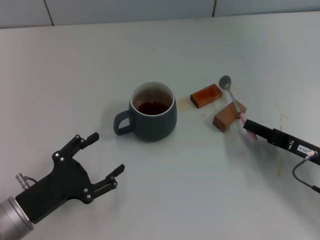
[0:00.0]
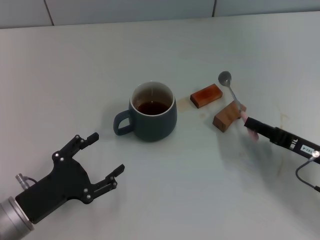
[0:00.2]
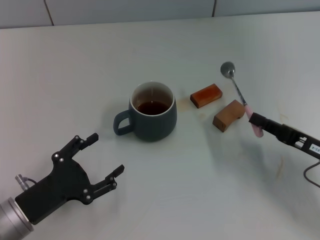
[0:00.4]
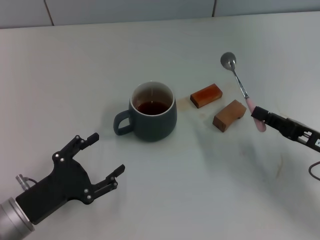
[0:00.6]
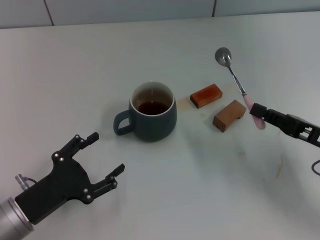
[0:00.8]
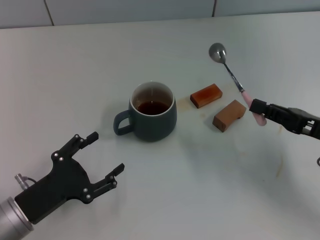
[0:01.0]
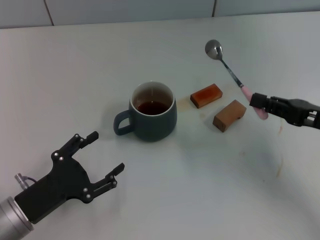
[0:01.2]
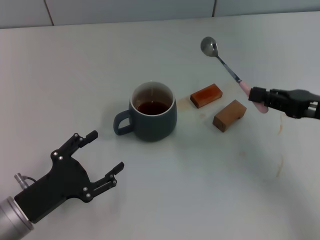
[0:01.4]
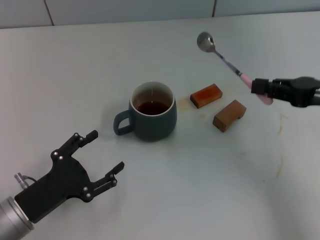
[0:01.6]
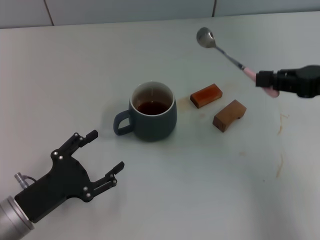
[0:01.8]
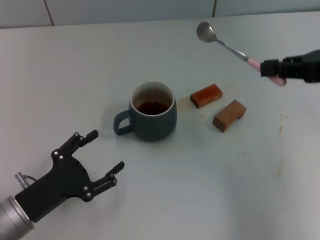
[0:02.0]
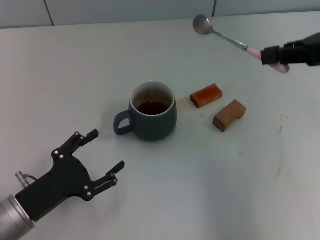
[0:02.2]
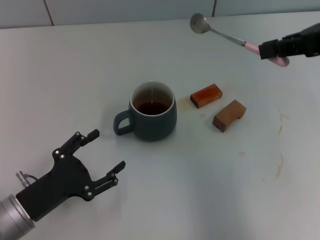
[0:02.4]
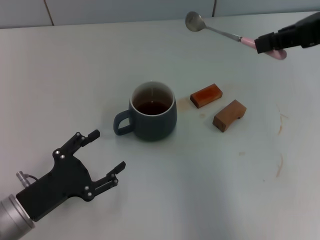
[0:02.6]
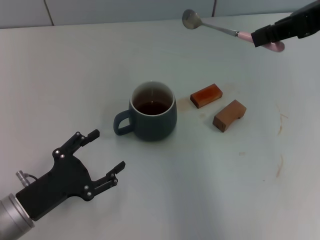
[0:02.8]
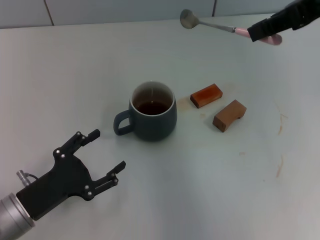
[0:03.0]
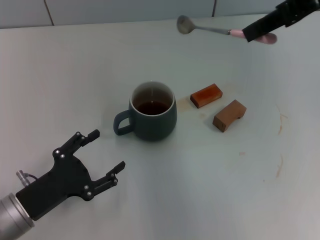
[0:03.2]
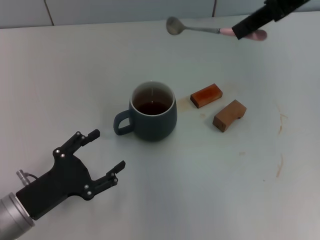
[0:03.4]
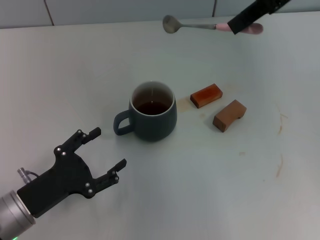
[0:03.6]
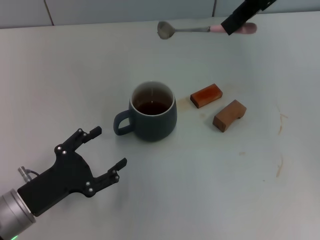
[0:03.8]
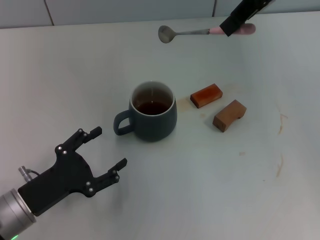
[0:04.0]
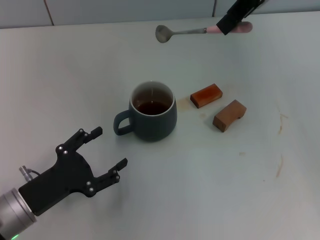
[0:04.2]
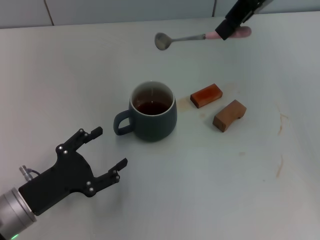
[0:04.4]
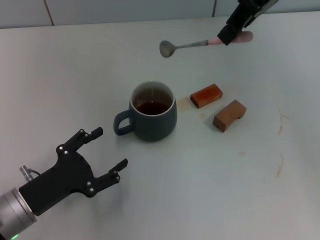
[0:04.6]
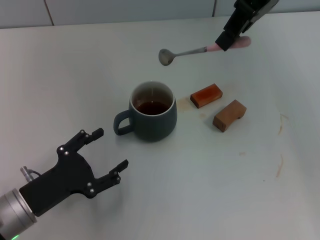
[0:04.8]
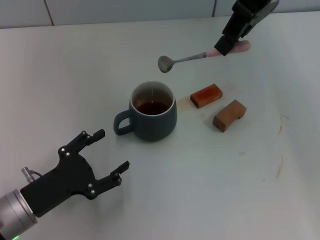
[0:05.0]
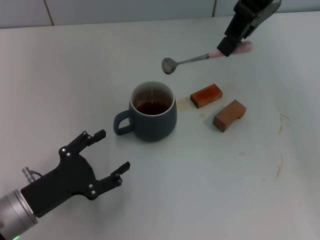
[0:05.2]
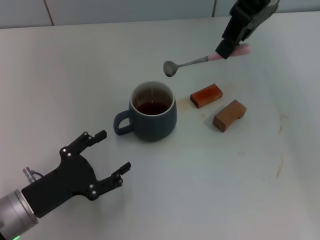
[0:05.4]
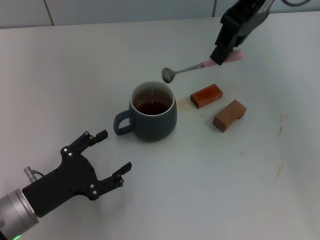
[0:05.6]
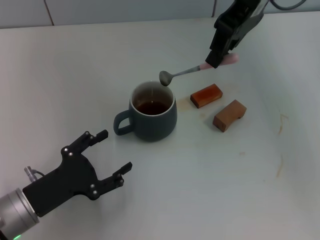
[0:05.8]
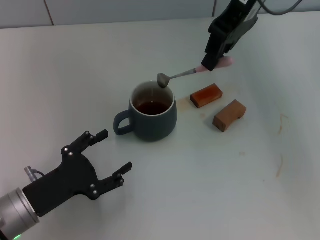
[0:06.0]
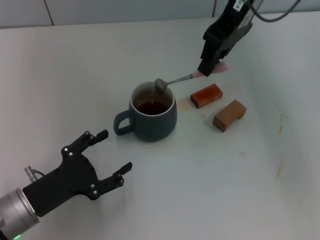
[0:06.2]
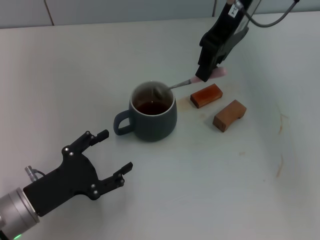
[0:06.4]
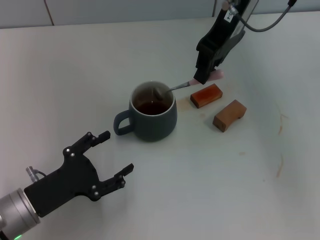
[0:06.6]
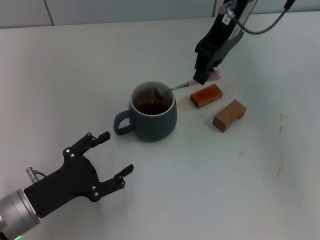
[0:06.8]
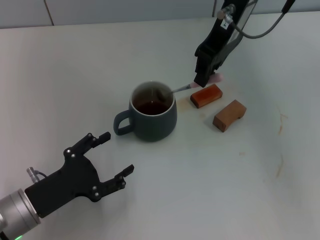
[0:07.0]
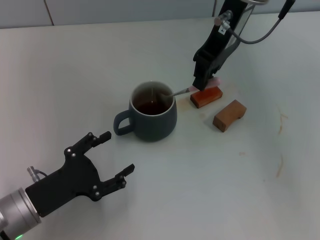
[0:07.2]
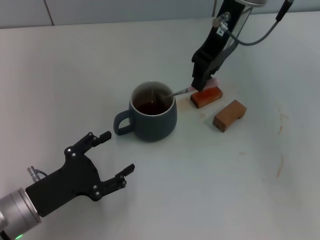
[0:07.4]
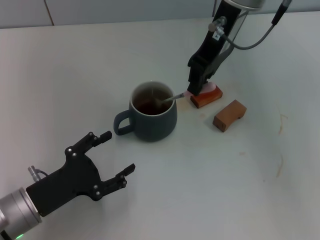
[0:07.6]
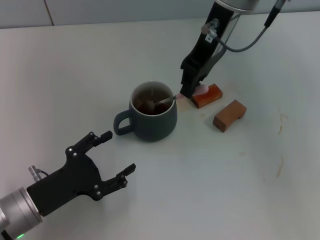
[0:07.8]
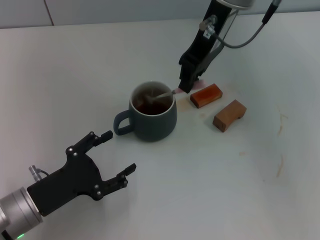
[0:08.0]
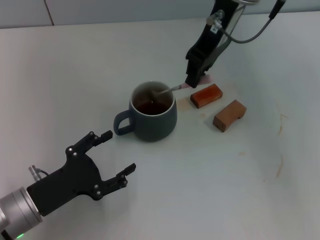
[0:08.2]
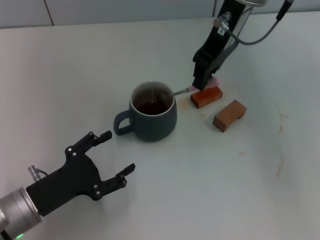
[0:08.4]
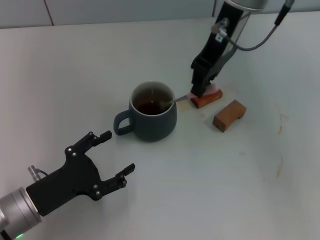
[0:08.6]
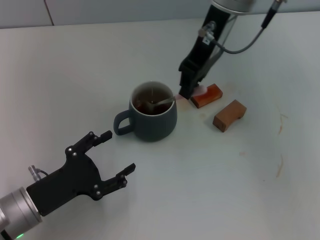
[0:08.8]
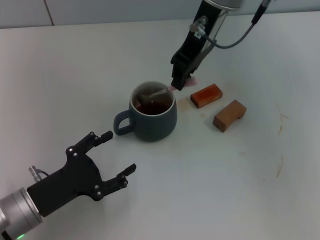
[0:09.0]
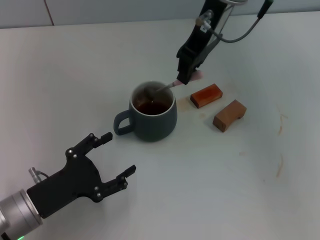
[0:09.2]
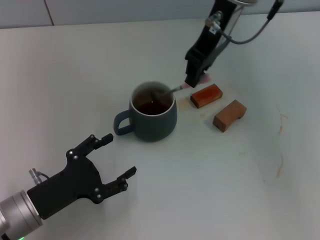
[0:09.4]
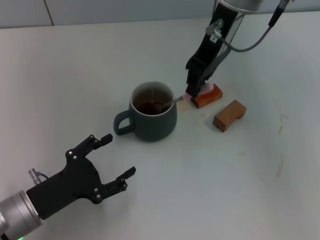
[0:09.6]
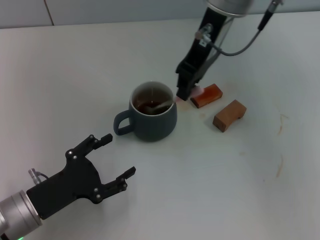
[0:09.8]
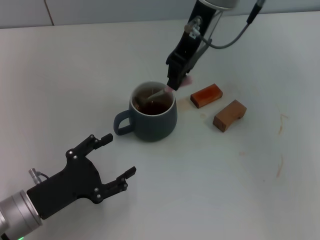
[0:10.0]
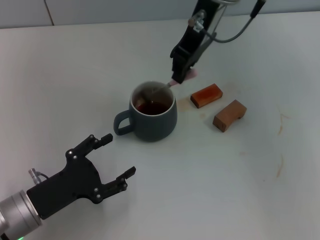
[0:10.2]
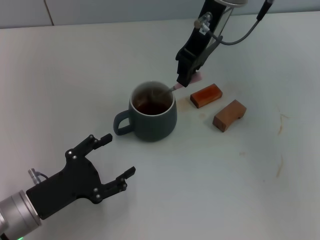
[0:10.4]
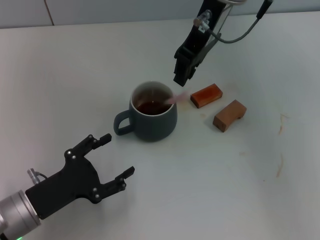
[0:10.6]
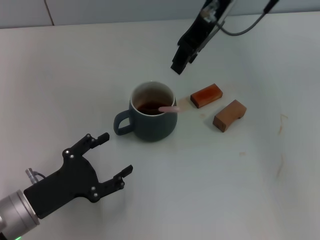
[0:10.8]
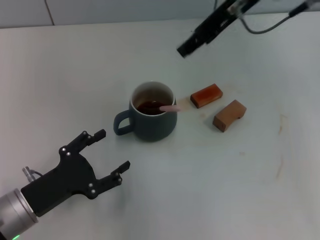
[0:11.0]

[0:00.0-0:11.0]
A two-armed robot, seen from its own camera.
Task of the whole recording: Move the grey cup to the center, lift the pink spoon, stir it three times in the cup, and put the spoon into the cup.
Step, 0:01.2 to 0:10.4: Stir the coffee in the cup with the right gripper.
0:00.0 to 0:01.6: The right gripper shifts about 15 cm upward.
0:01.6 to 0:03.2: The right gripper shifts roughly 20 cm upward, forward and to the left.
0:03.2 to 0:04.8: The right gripper travels to the left and forward by some 10 cm.
0:04.8 to 0:06.2: The right gripper changes place by approximately 5 cm.
0:06.2 to 0:09.4: The grippers move only a little.
0:09.4 to 0:11.0: The right gripper shifts by approximately 5 cm, and opens its fingers.

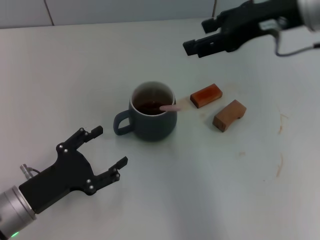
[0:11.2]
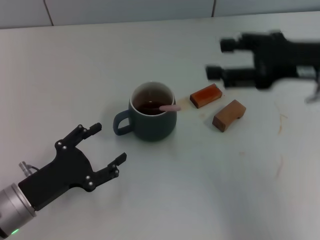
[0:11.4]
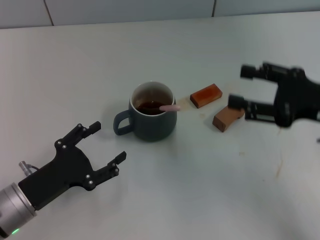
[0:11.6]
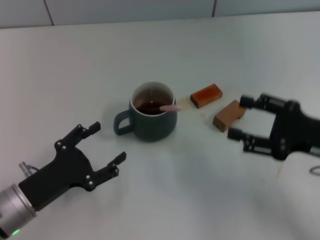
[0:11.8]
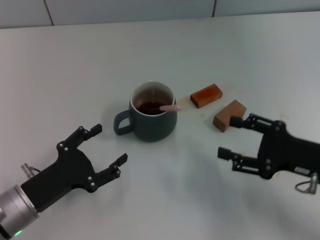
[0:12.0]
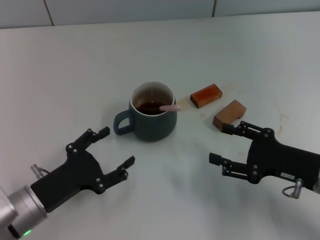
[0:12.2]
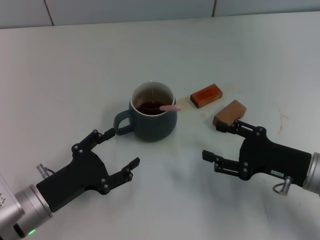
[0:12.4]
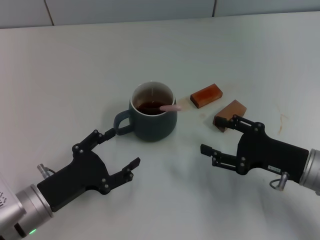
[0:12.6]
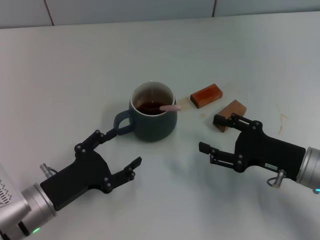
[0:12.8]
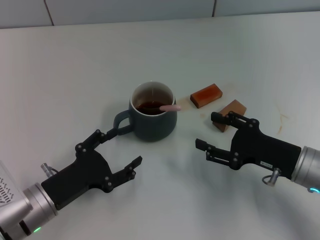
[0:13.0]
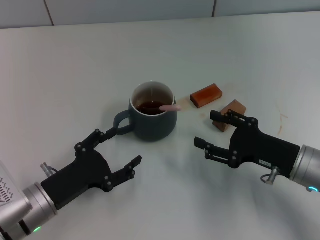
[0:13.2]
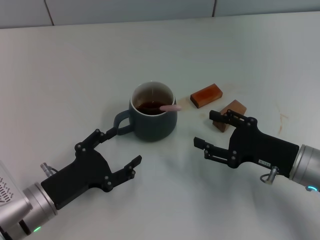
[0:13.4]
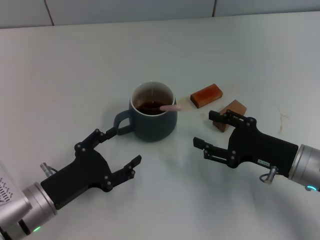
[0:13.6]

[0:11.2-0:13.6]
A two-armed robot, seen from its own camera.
Task of the whole recording: Move the grey cup to the center, lift the pink spoon, stir it three times in the cup, and put the spoon into the cup.
0:11.2 to 0:12.4: The right gripper shifts about 25 cm downward and backward.
0:12.4 to 0:13.6: There are only small adjustments of the grippers.

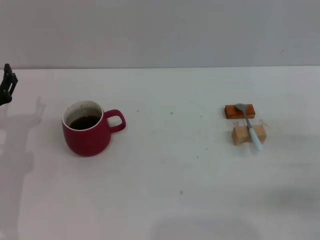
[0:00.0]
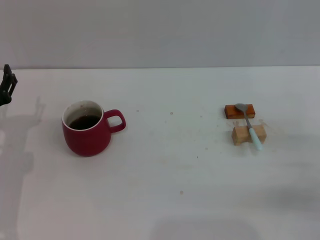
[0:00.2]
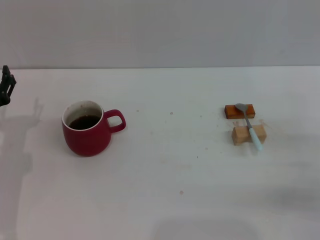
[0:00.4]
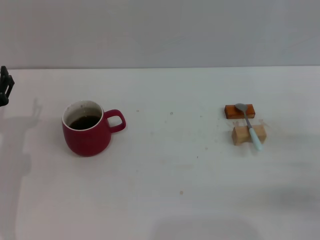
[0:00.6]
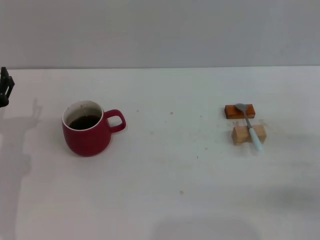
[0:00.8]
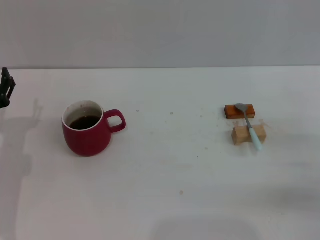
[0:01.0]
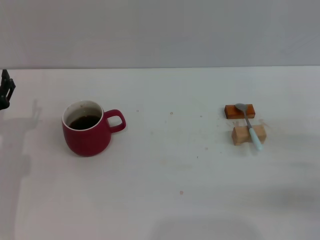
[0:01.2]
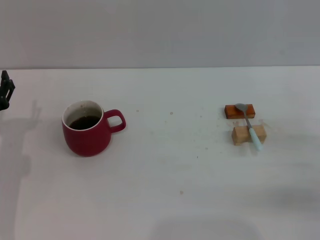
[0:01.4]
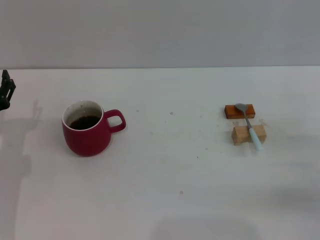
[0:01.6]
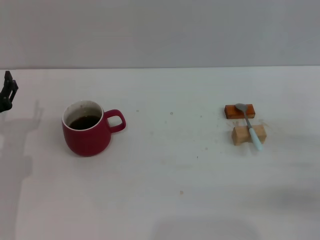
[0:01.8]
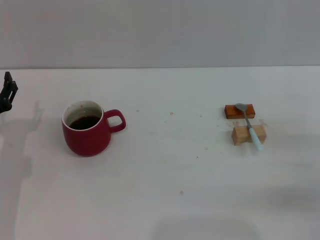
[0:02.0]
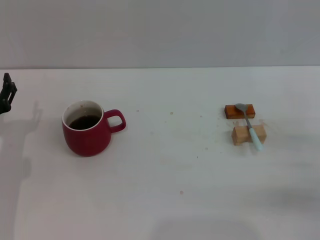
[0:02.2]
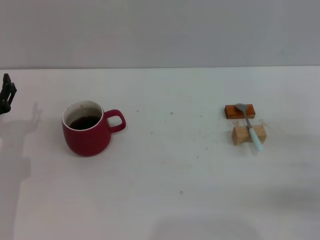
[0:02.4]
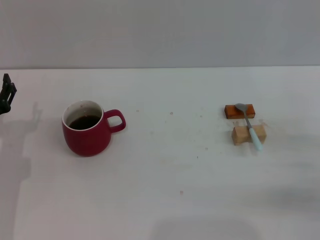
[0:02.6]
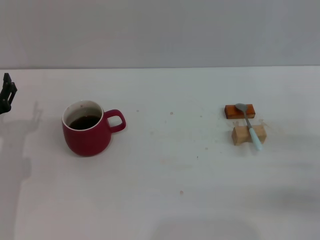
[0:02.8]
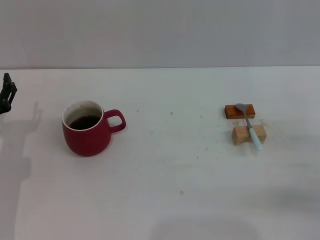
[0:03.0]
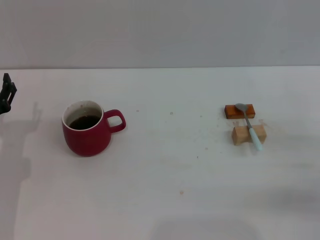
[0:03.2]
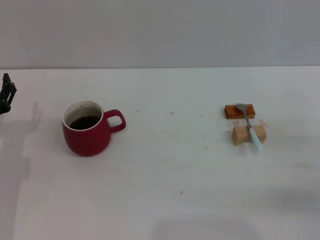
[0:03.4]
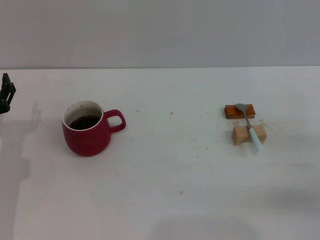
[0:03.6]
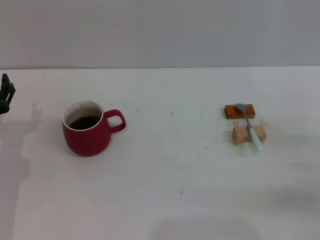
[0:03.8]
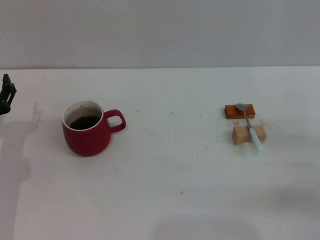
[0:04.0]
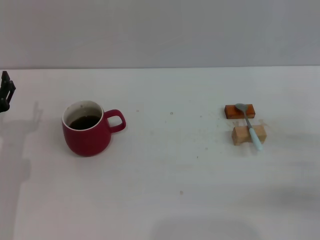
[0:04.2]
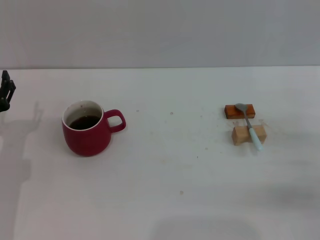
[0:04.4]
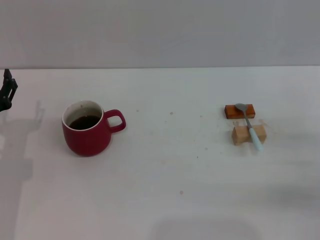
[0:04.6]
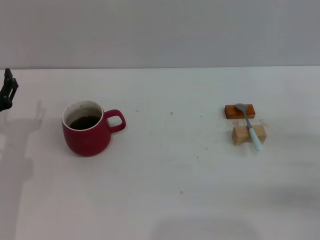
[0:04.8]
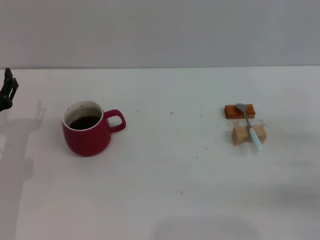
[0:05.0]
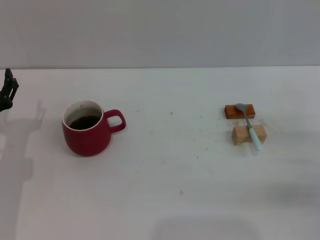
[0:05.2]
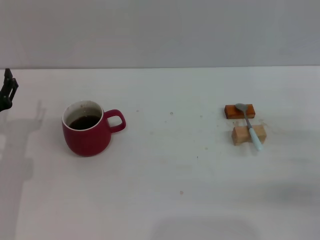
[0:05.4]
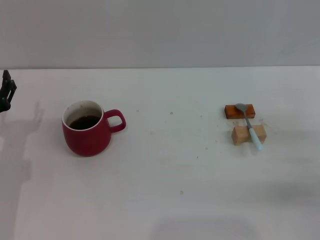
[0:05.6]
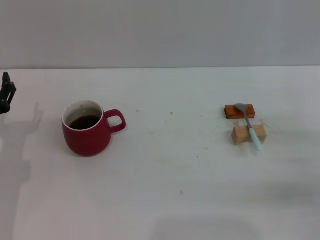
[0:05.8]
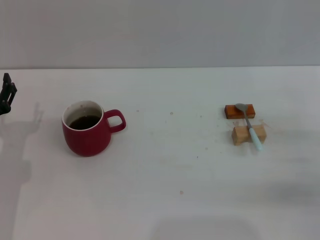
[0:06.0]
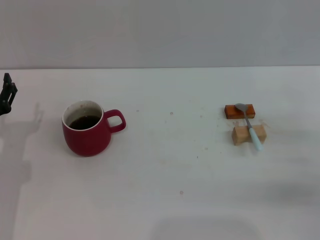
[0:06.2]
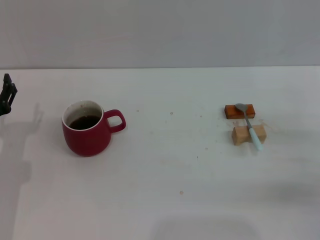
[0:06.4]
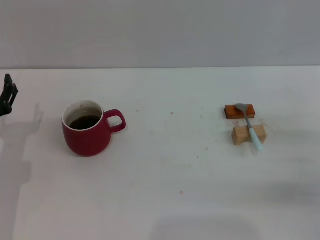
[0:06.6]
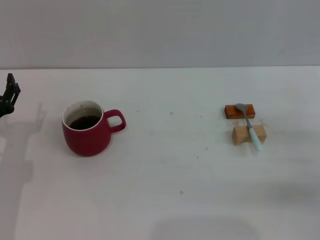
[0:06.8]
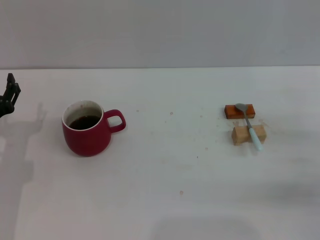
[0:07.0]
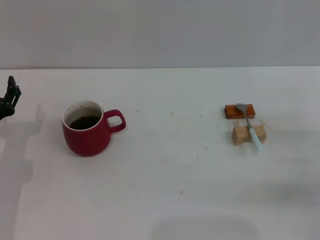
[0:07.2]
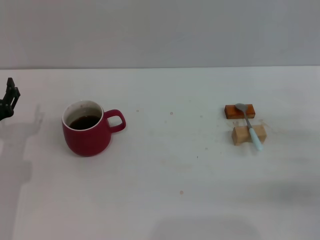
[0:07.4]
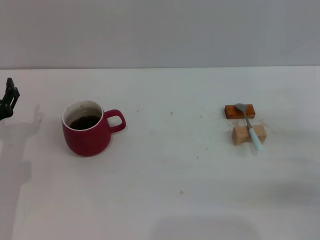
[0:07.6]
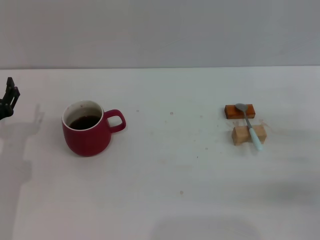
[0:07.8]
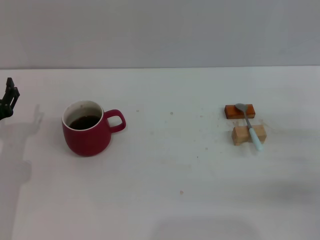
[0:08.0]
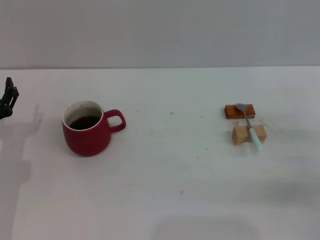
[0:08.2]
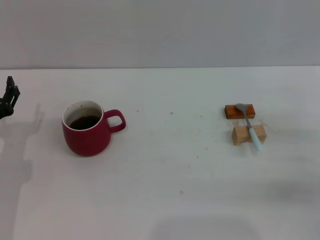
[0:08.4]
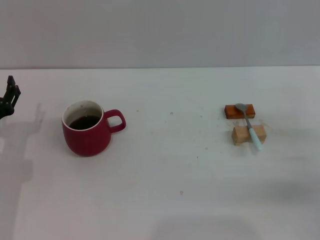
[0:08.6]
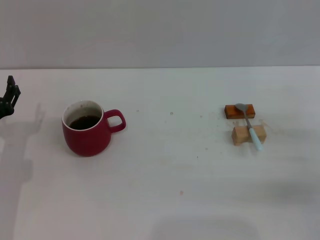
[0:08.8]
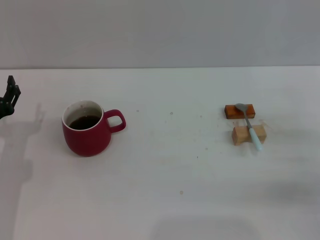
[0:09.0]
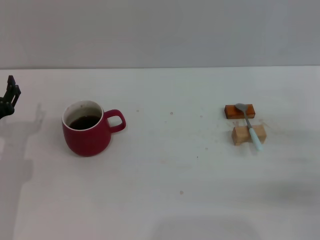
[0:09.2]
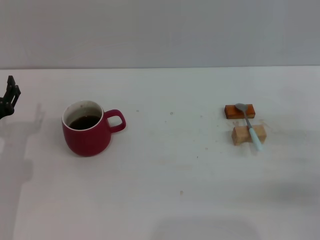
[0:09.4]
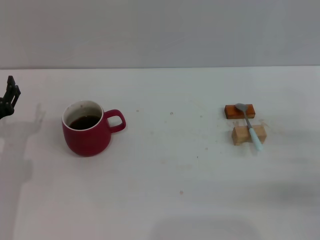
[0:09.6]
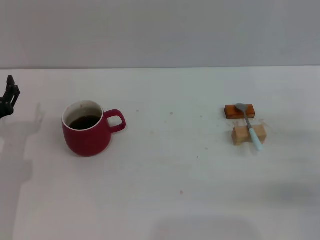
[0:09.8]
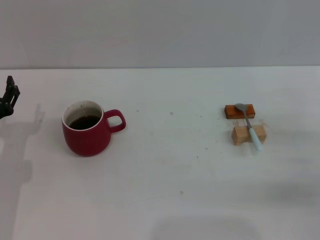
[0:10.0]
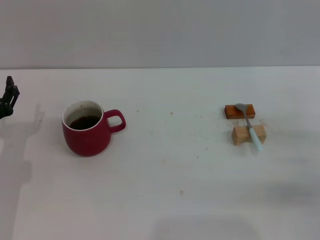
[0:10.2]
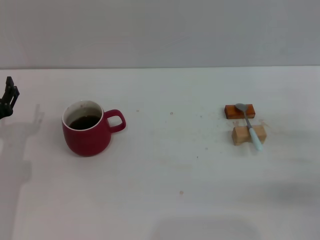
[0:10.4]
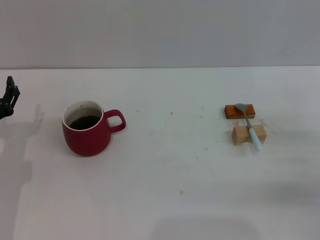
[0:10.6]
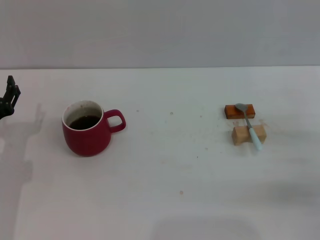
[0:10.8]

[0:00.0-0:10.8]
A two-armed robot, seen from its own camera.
Task of the whole recording: Move the red cup to the center, lift the blue spoon, stir it three times in the cup, and put the spoon into the cup.
0:00.0 to 0:03.0: Neither gripper changes place.
0:03.0 to 0:10.8: Both grippers stay put.
